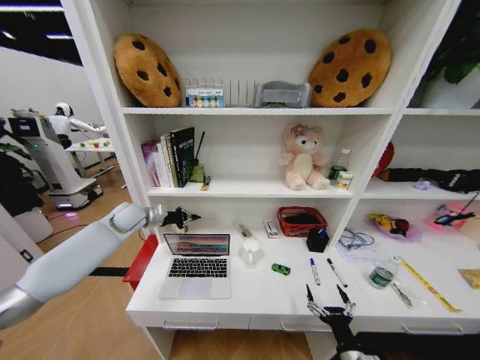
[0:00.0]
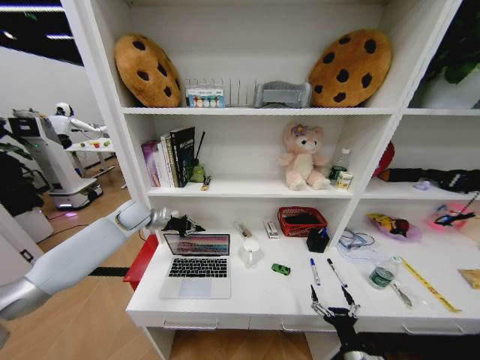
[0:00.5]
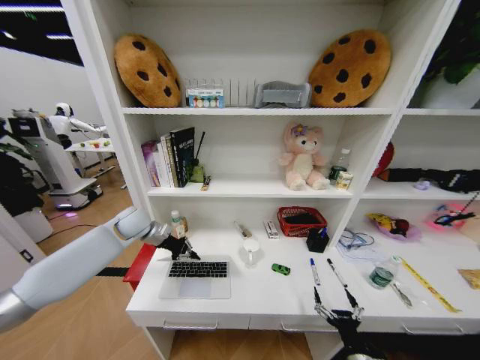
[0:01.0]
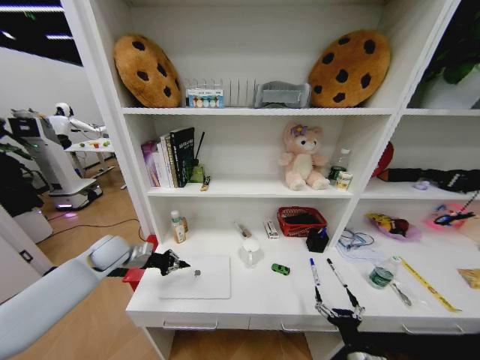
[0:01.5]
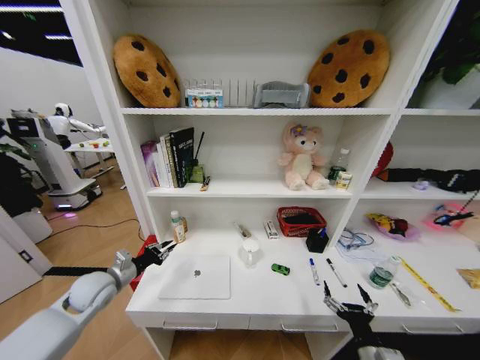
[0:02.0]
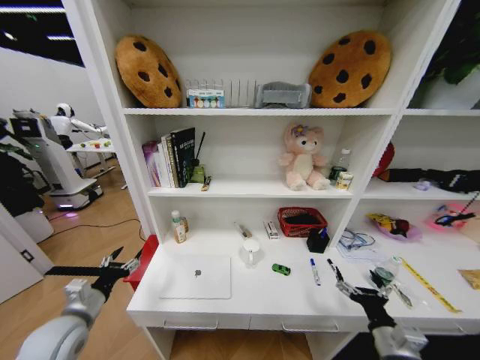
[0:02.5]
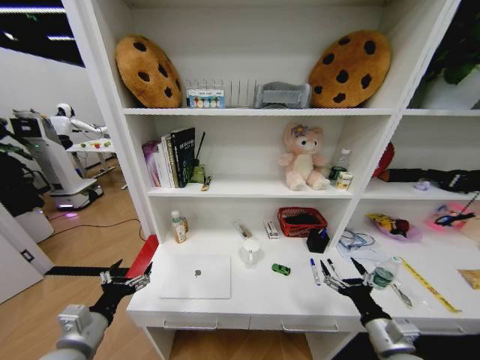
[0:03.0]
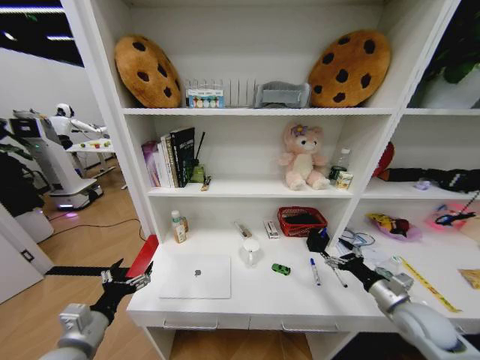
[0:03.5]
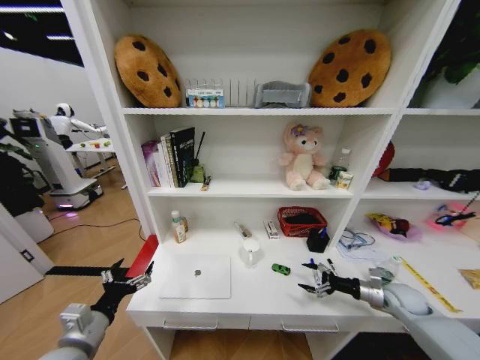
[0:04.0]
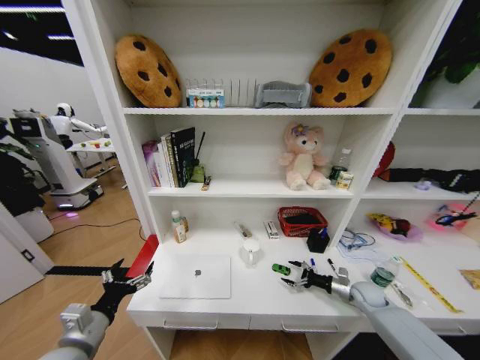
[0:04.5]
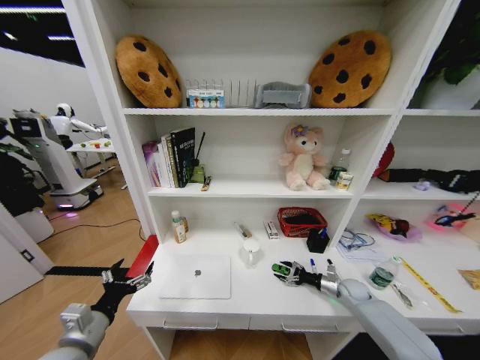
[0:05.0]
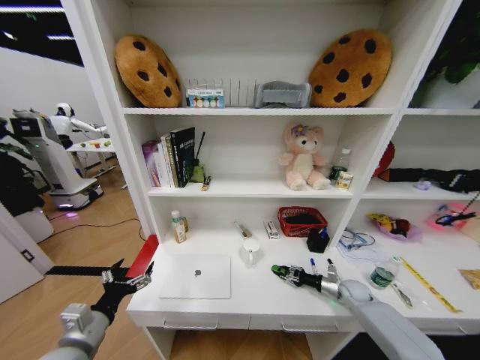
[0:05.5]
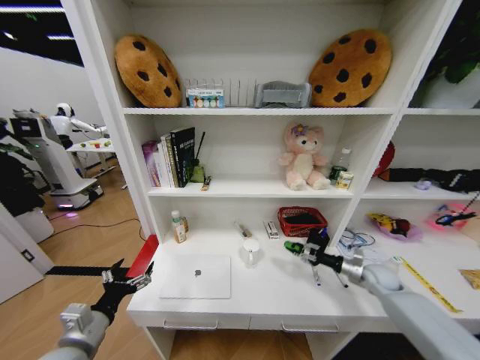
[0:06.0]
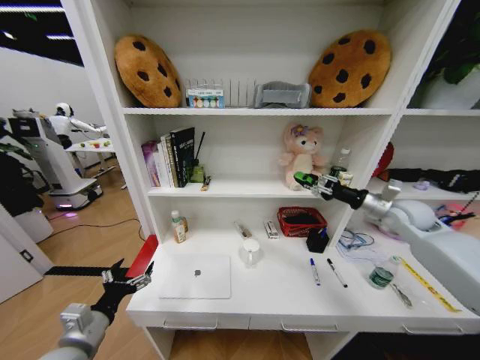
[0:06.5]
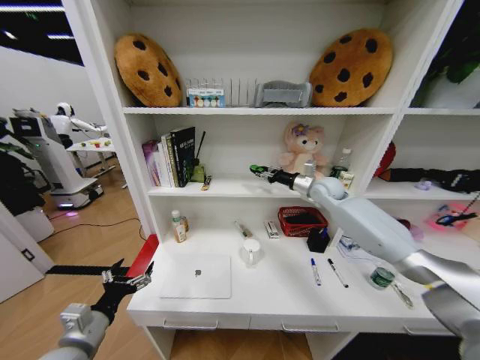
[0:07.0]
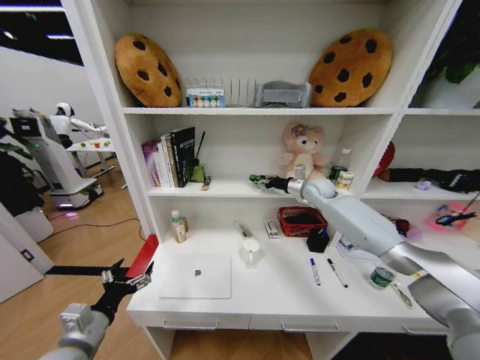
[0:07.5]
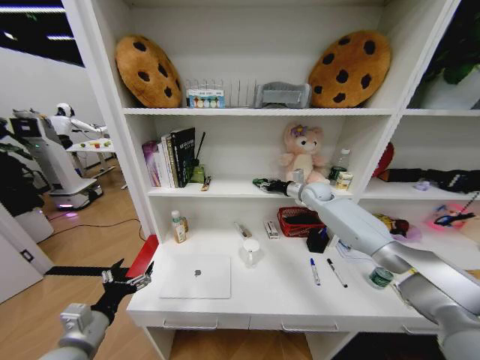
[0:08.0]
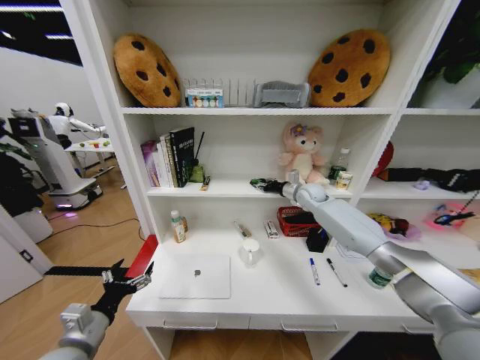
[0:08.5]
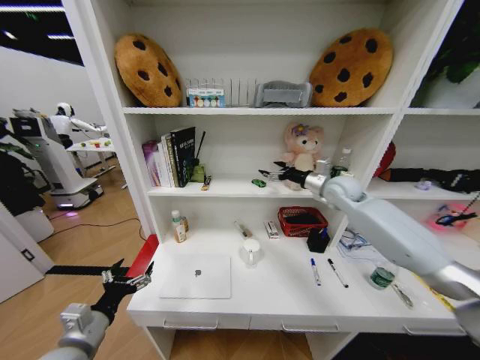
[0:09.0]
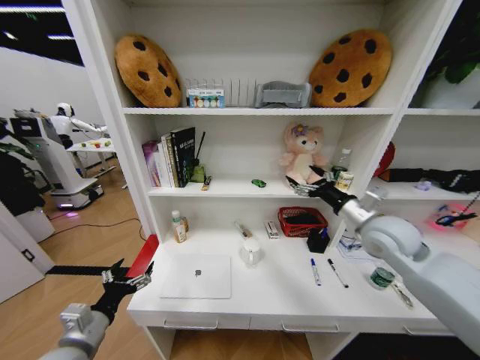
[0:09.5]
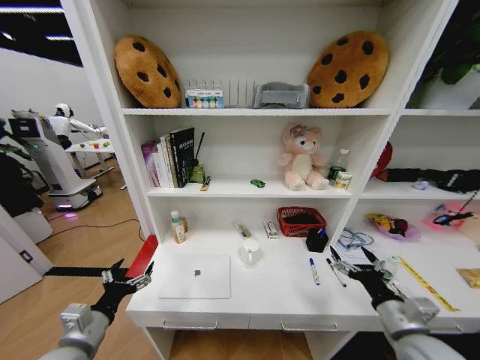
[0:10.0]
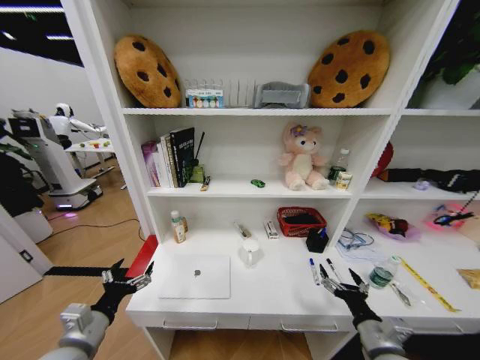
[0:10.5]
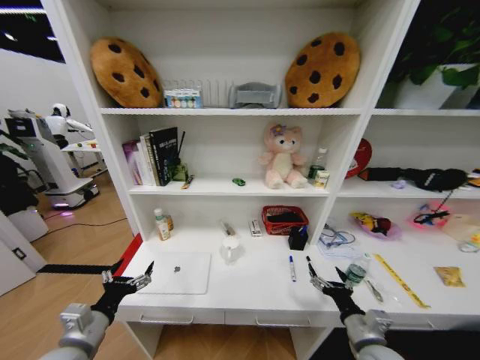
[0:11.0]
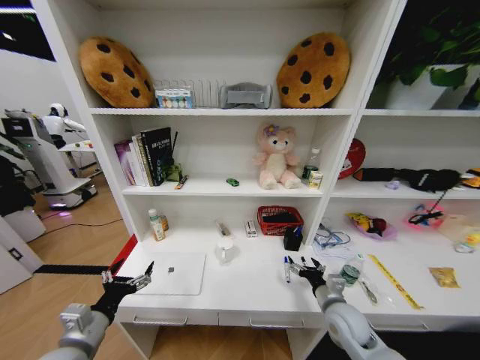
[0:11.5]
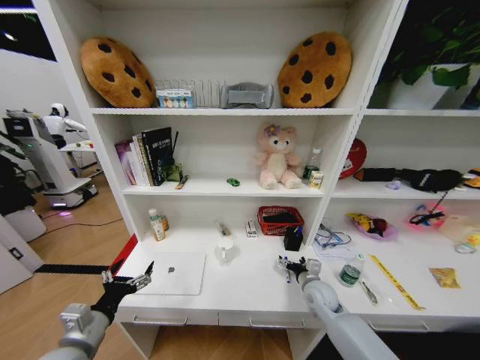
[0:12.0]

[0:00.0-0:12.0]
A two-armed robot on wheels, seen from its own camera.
Task of the whole recording: Organize the objects on the table.
0:00.0 to 0:02.0: The left gripper is displaced backward and downward by some 20 cm.
0:02.0 to 0:04.0: The right gripper shifts about 30 cm forward and to the right. Meanwhile the left gripper moves backward, some 15 cm, and opens.
0:04.0 to 0:06.0: The right gripper goes approximately 5 cm forward, travels downward and back again, approximately 10 cm each way, and closes its fingers.
0:06.0 to 0:08.0: The right gripper shifts about 35 cm forward, upward and to the left.
0:08.0 to 0:10.0: The right gripper goes roughly 40 cm backward, and opens up.
0:10.0 to 0:12.0: The right gripper travels forward, downward and to the left by roughly 20 cm.

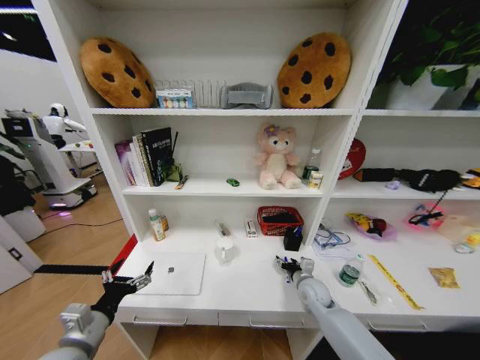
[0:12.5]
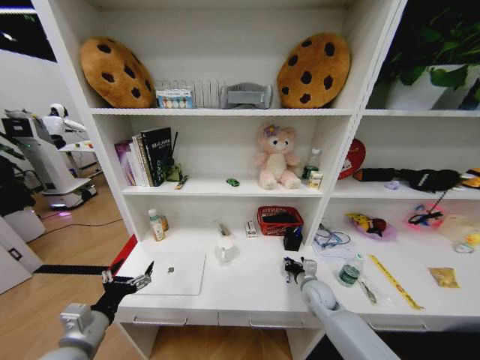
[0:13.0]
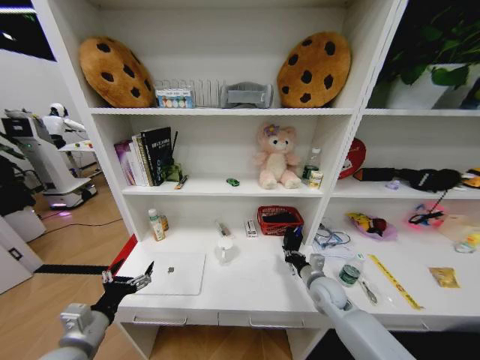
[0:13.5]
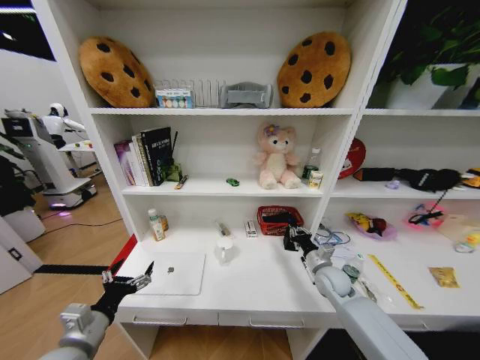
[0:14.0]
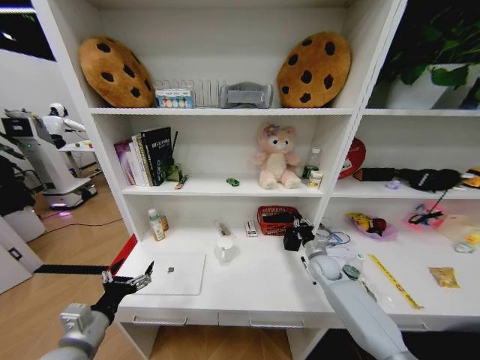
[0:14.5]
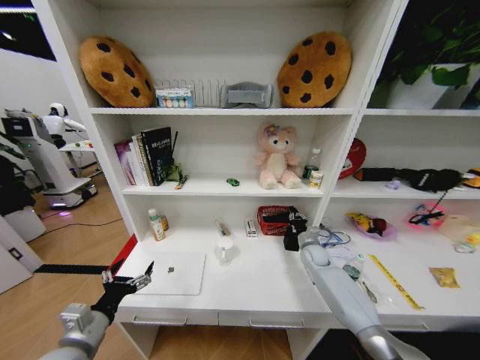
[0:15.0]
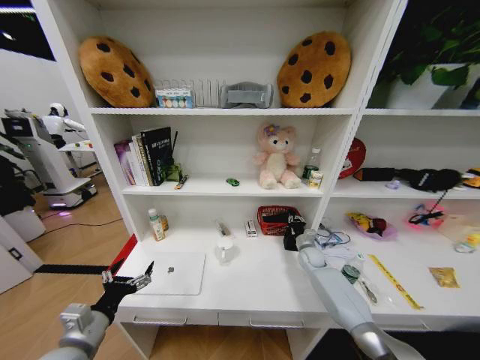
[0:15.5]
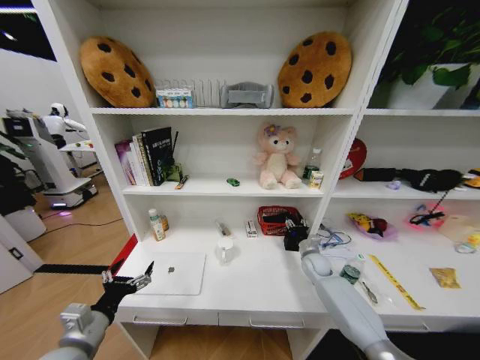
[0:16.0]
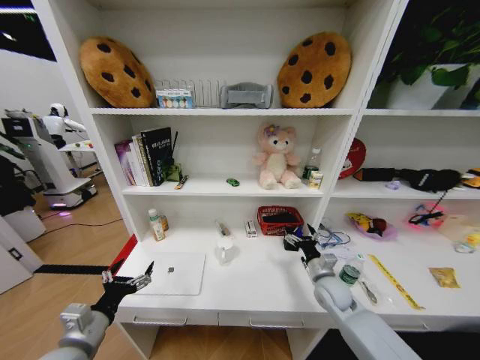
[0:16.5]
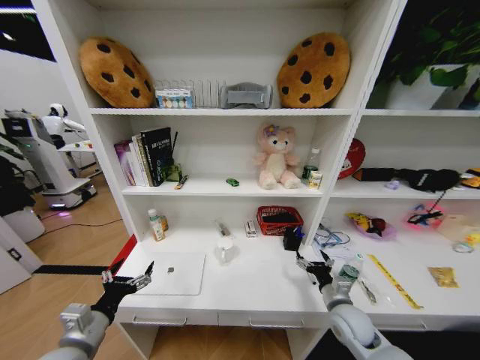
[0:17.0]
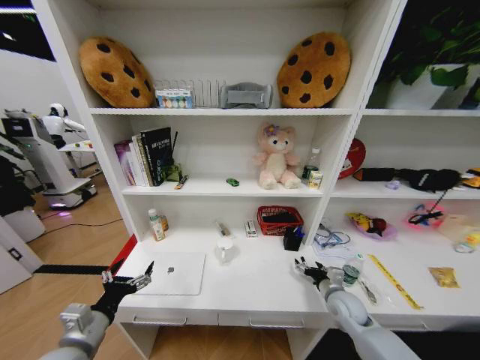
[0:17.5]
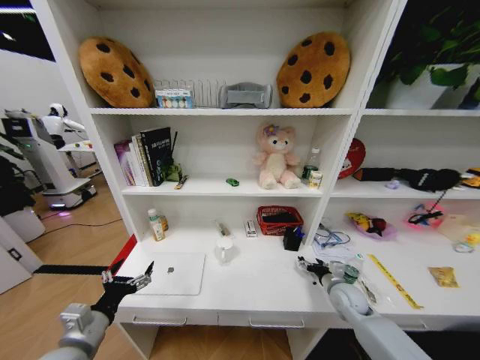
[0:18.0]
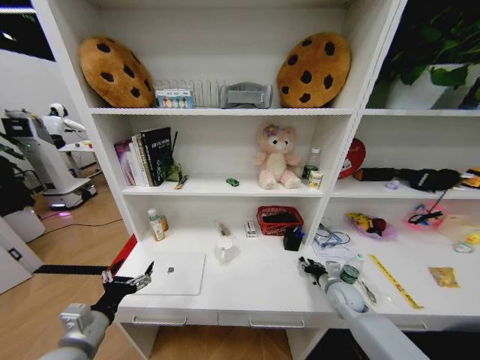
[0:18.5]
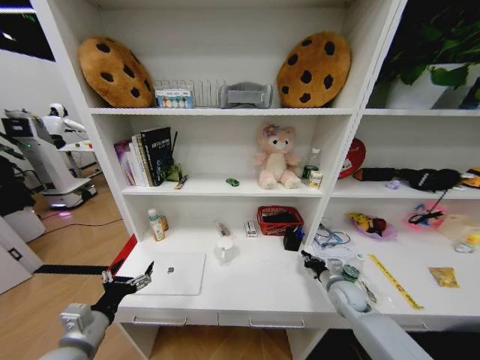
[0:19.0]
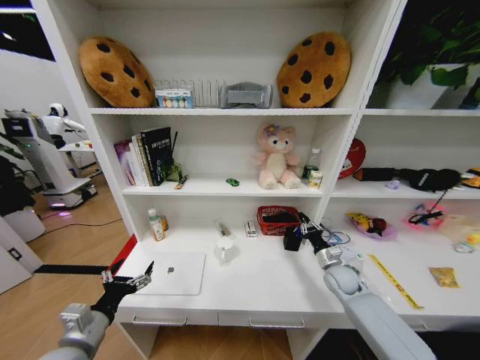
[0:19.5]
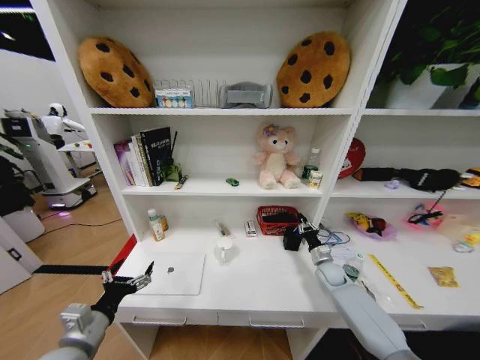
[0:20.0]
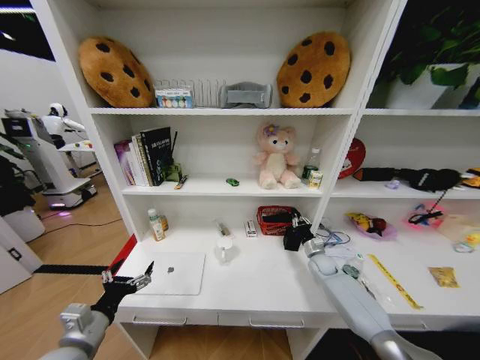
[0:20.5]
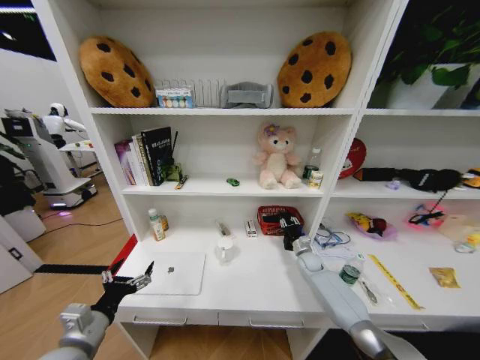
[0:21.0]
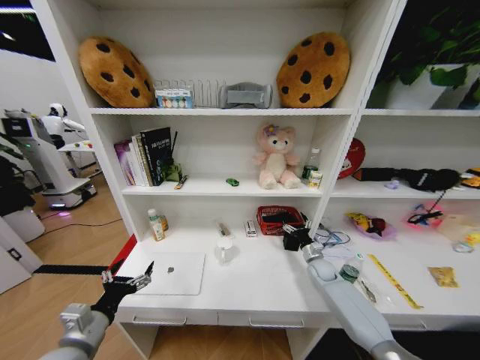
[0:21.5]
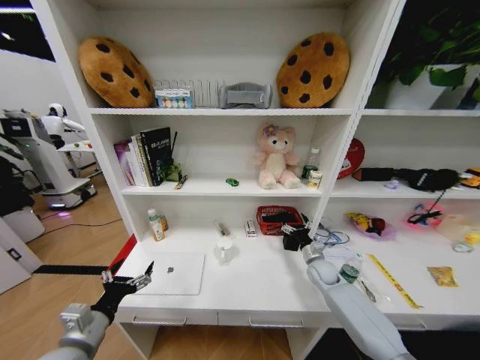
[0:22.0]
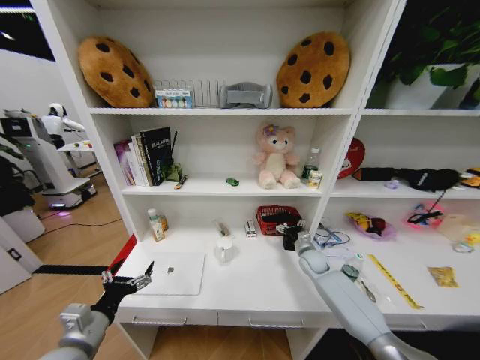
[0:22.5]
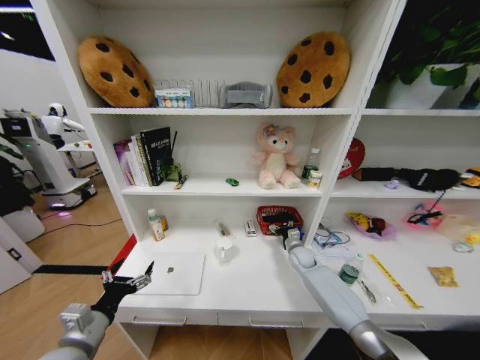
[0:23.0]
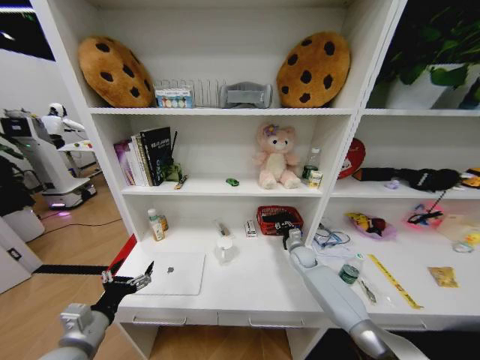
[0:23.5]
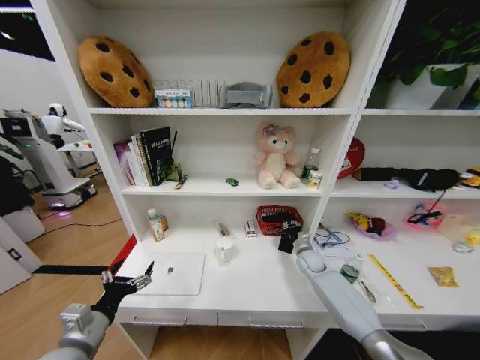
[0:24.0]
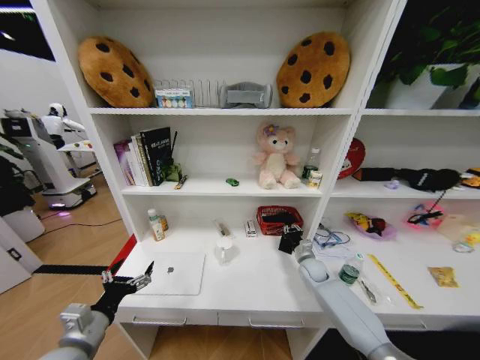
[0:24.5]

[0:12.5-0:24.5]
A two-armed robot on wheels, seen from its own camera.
Task of the whole recording: Organize the objects on the table.
0:12.5 to 0:14.5: The right gripper goes about 10 cm forward and to the right, and closes.
0:14.5 to 0:16.5: The right gripper moves backward, approximately 10 cm, and opens up.
0:16.5 to 0:18.5: The right gripper shifts some 5 cm to the right, moves approximately 10 cm backward and comes back, and closes up.
0:18.5 to 0:20.5: The right gripper moves forward, about 15 cm.
0:20.5 to 0:22.5: The right gripper heads to the left, covering approximately 5 cm, and opens its fingers.
0:22.5 to 0:24.5: The right gripper closes up.

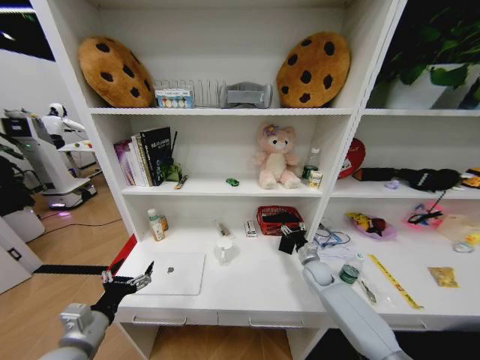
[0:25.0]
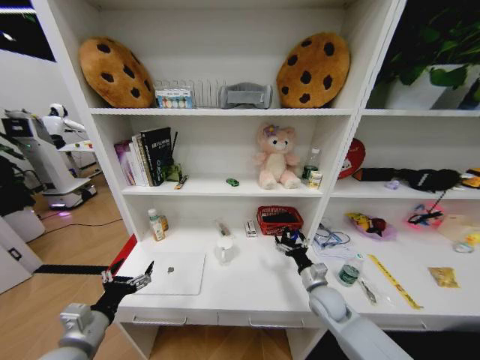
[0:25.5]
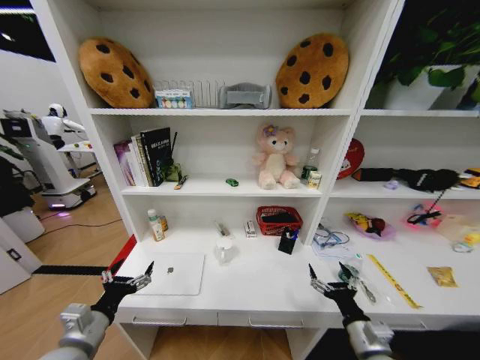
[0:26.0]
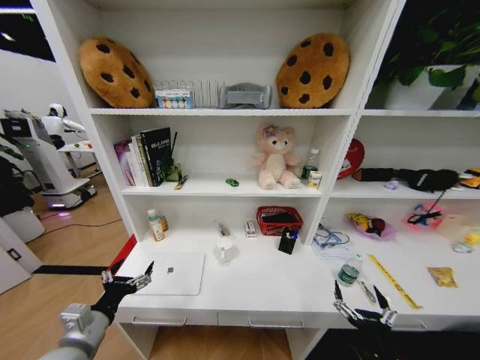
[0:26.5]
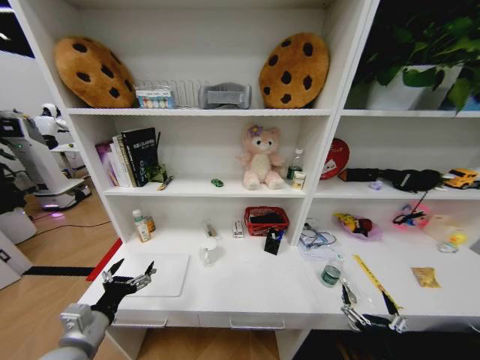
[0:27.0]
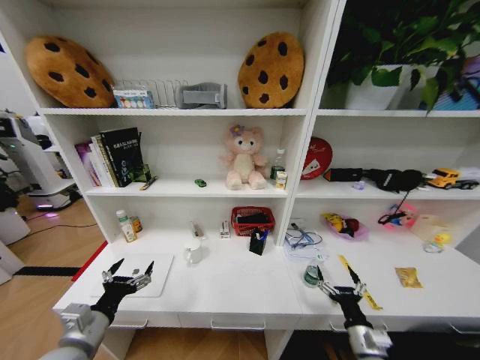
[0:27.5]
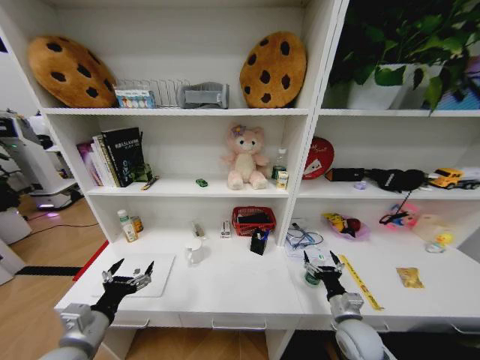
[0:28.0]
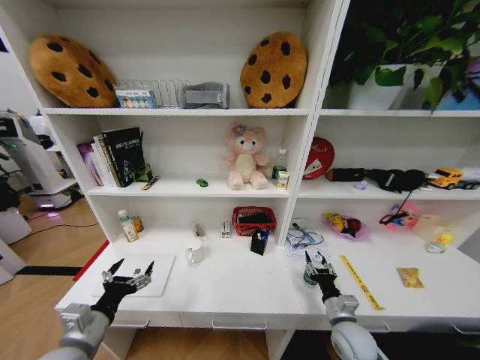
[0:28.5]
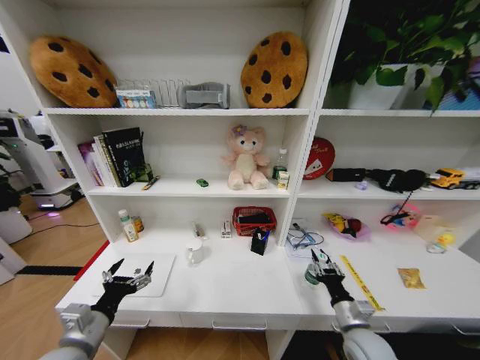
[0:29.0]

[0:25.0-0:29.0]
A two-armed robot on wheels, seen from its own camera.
Task of the whole recording: Organize the objects on the table.
0:25.0 to 0:27.0: The right gripper goes approximately 35 cm backward, and opens its fingers.
0:27.0 to 0:29.0: The right gripper moves forward, roughly 15 cm, and closes up.
